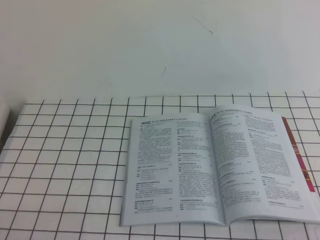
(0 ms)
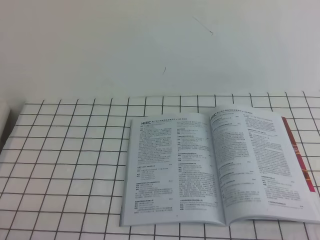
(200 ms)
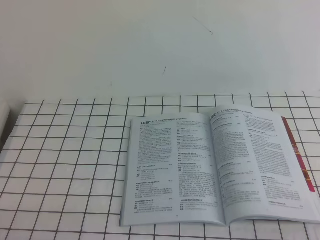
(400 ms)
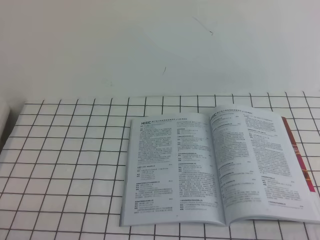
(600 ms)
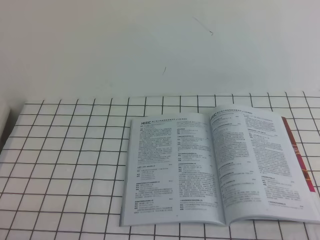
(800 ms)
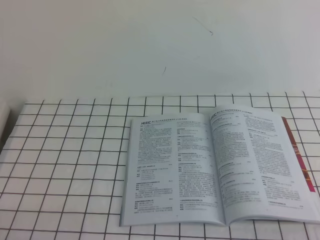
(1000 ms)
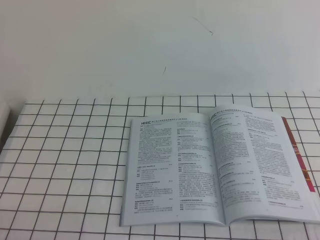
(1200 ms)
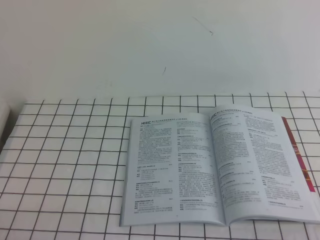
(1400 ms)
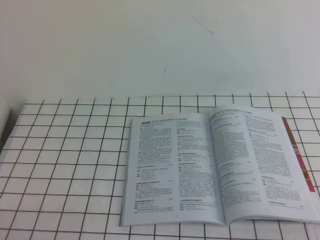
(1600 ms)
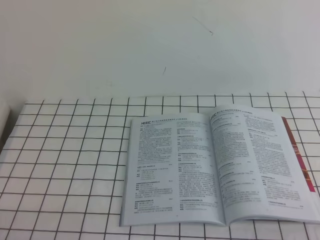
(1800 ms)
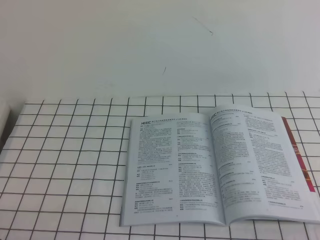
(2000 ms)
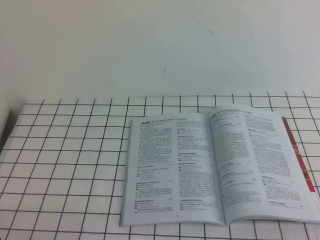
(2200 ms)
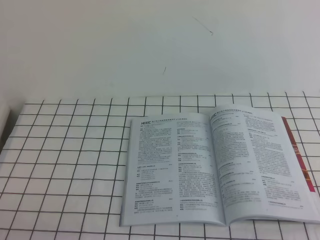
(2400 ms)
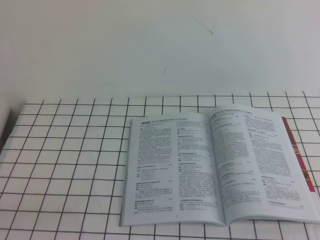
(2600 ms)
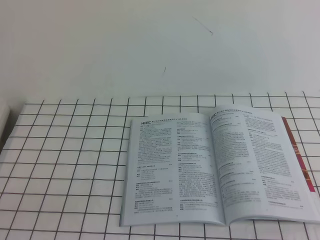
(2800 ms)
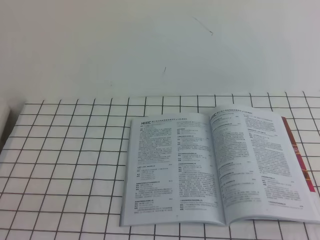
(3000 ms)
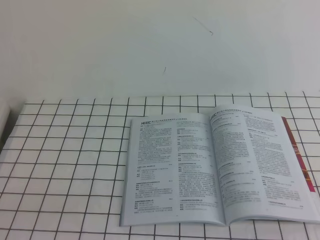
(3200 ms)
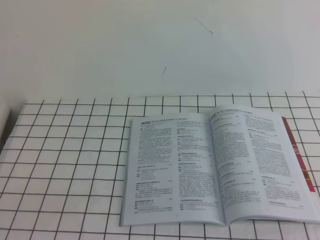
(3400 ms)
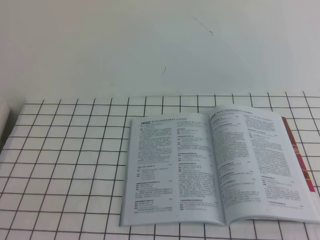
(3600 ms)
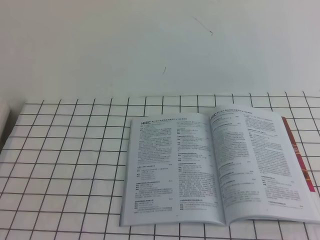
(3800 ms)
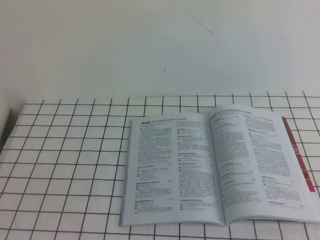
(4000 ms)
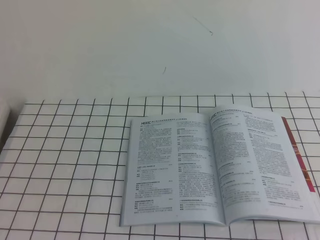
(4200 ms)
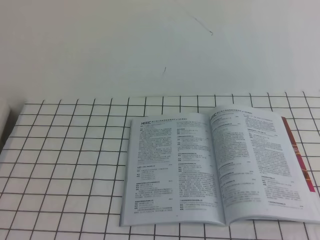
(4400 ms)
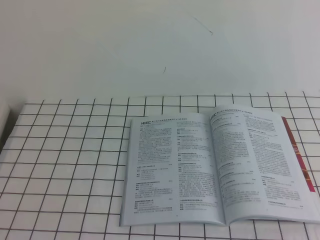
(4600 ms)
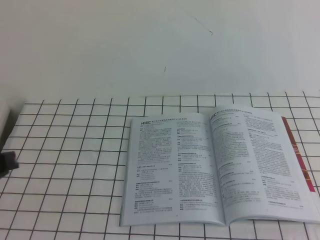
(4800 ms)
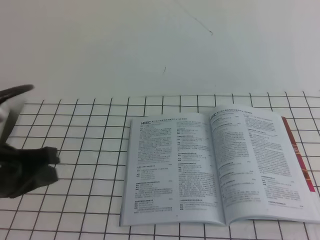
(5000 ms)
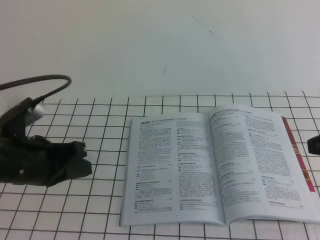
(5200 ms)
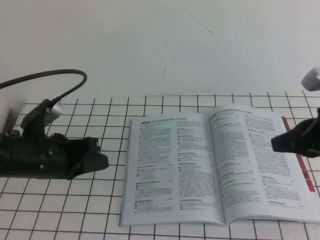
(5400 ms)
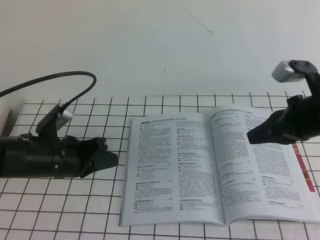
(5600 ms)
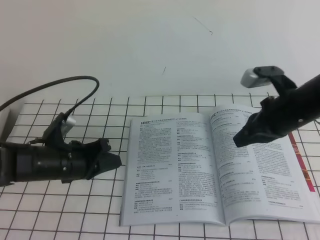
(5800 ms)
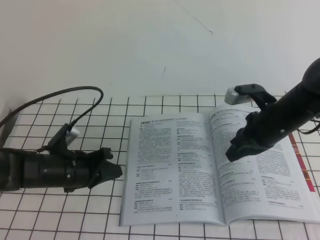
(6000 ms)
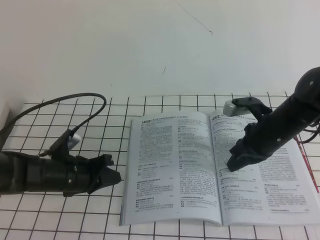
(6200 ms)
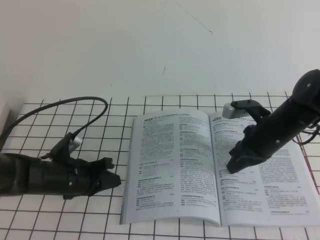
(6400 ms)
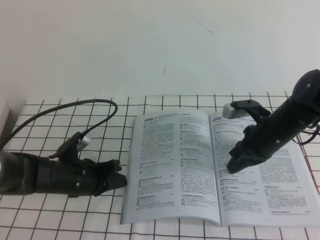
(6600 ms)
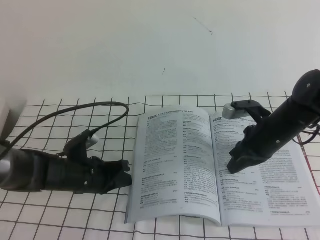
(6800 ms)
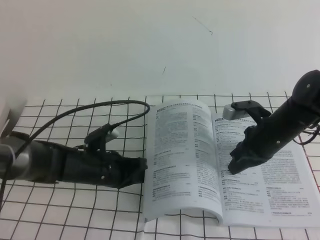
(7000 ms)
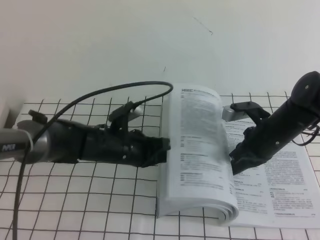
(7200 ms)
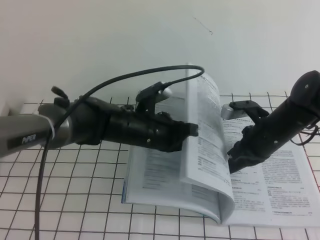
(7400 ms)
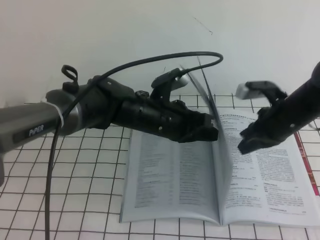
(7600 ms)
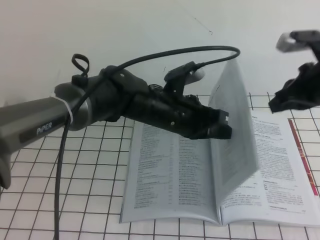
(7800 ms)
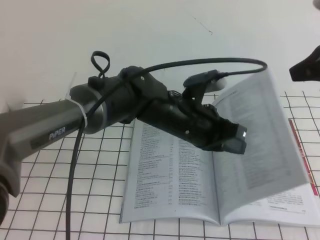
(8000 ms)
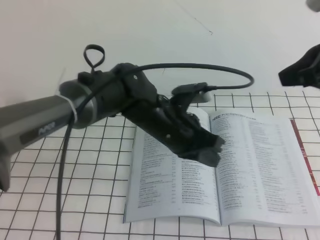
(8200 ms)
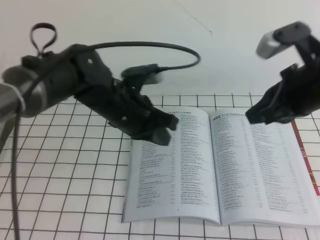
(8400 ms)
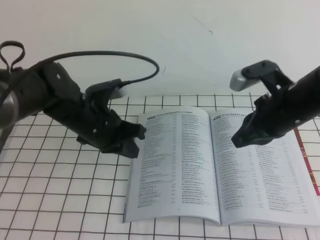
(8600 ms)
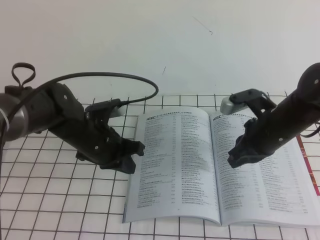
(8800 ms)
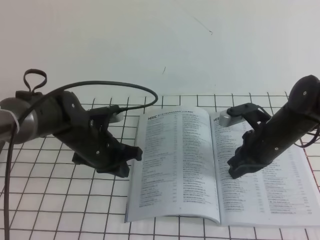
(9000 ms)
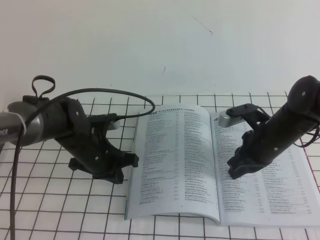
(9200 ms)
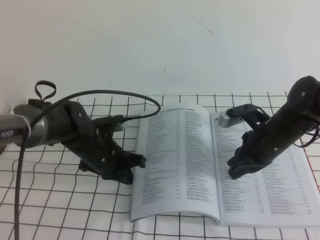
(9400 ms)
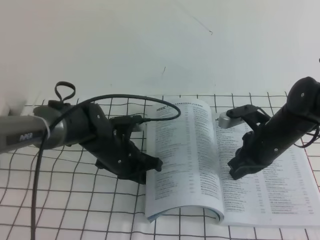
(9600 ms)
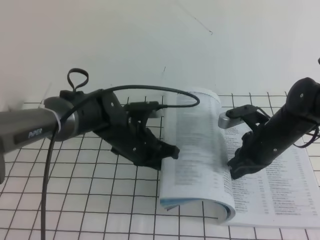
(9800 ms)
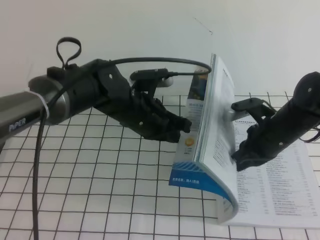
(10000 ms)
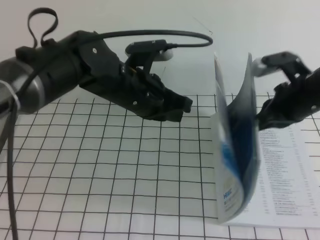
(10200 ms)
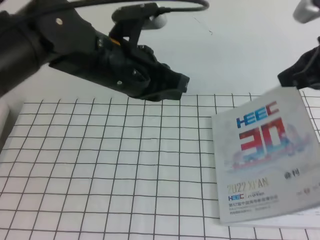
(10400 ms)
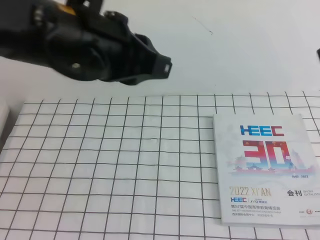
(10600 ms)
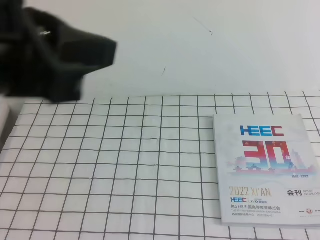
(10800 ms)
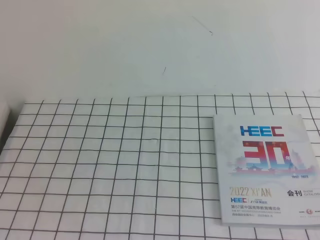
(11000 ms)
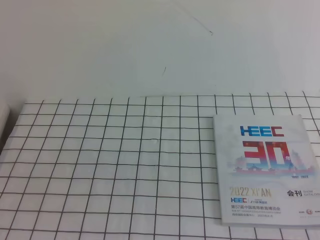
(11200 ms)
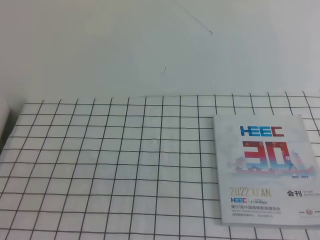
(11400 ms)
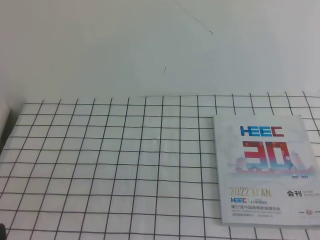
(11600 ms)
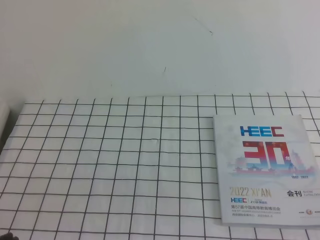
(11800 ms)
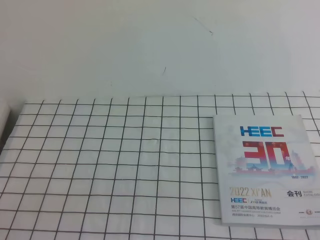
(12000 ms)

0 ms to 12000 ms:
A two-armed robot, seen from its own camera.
Task of the whole recording: on the white tablecloth, hold the book with one hand and close it with the other.
0 ms to 1600 ms: Neither gripper changes place.
4400 ms to 6000 ms: Both grippers move forward and downward, approximately 40 cm.
6000 ms to 7600 ms: The left gripper travels to the right and upward by some 20 cm.
7600 ms to 9000 ms: The left gripper shifts about 10 cm to the left. Meanwhile the right gripper goes upward and returns, roughly 15 cm each way.
9000 ms to 10400 ms: The two grippers go about 20 cm upward.
10400 ms to 12000 ms: The left gripper is displaced backward and to the left by some 30 cm, while the right gripper travels backward by roughly 25 cm.
